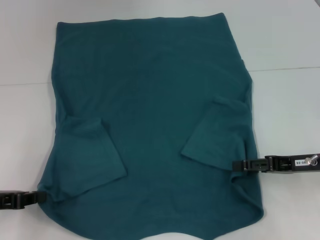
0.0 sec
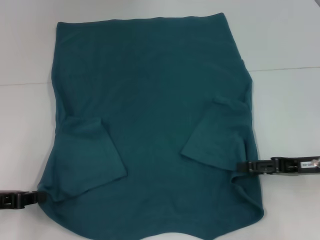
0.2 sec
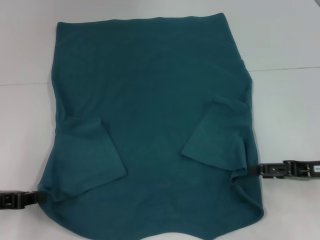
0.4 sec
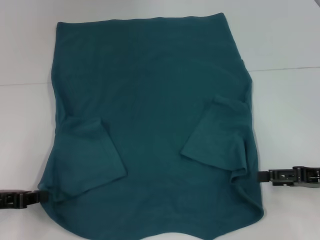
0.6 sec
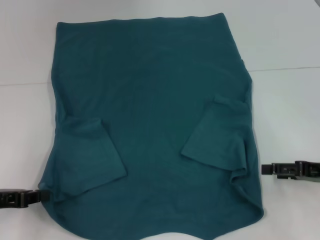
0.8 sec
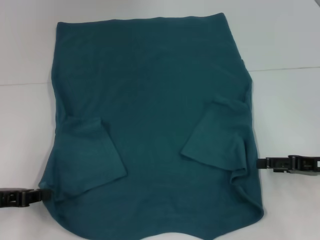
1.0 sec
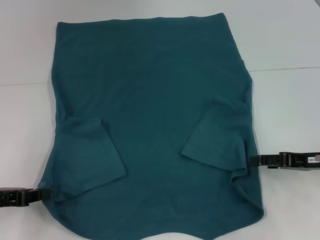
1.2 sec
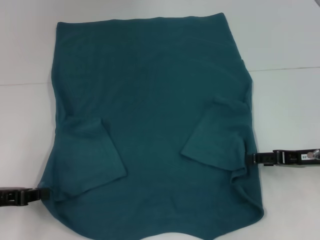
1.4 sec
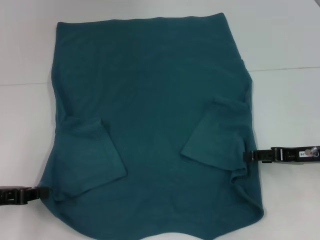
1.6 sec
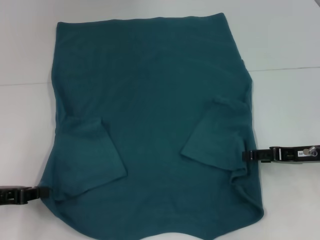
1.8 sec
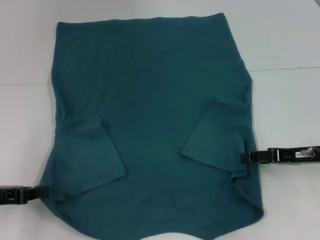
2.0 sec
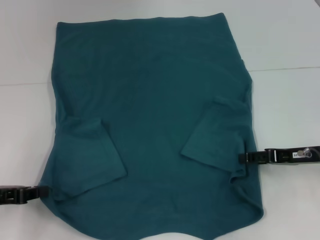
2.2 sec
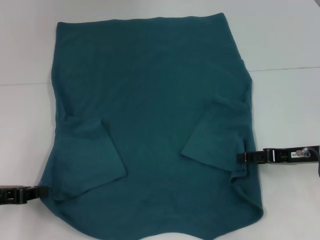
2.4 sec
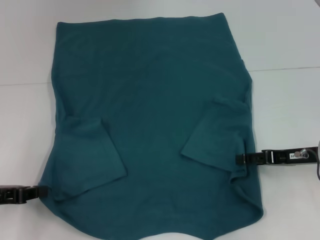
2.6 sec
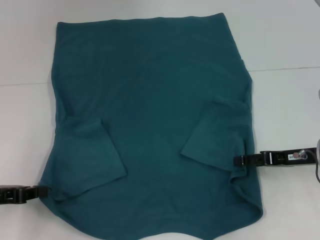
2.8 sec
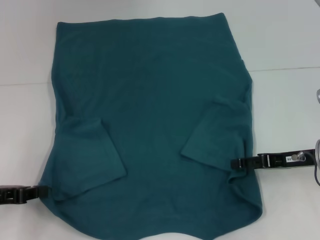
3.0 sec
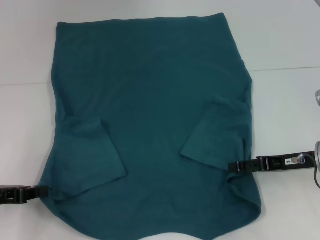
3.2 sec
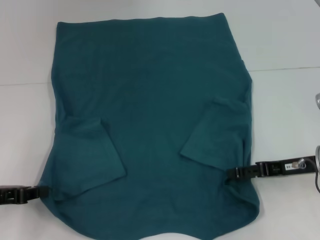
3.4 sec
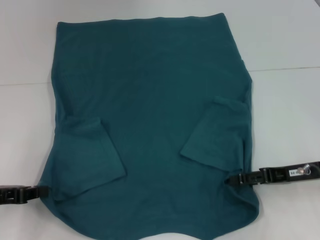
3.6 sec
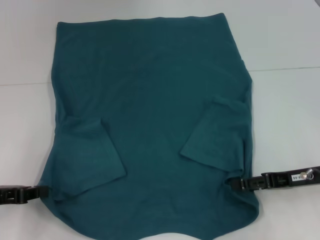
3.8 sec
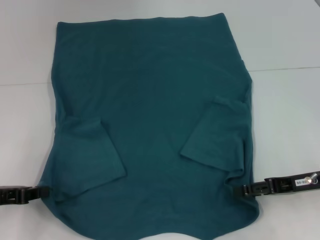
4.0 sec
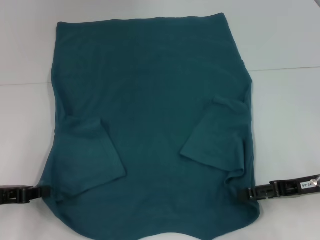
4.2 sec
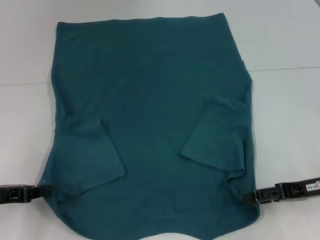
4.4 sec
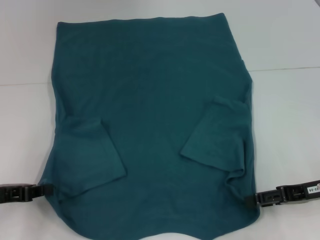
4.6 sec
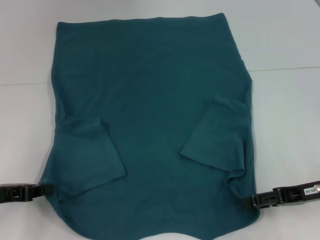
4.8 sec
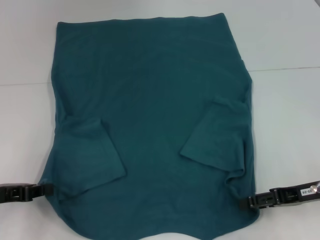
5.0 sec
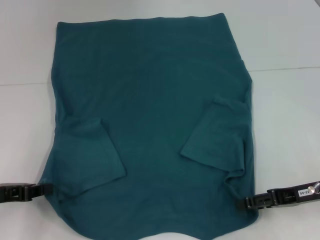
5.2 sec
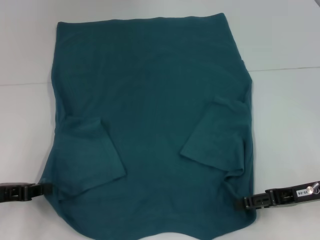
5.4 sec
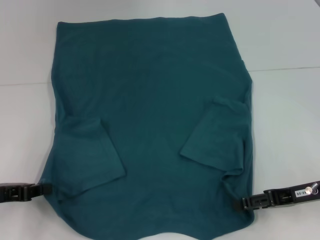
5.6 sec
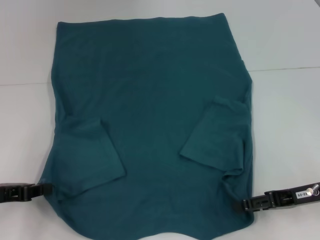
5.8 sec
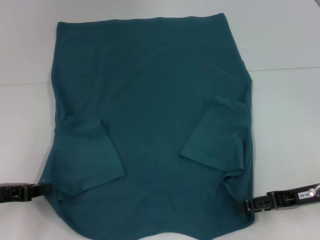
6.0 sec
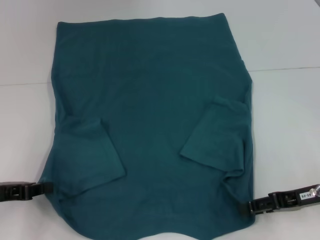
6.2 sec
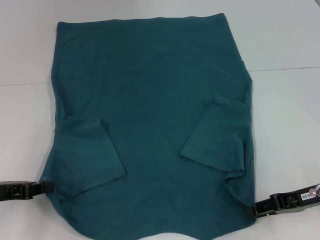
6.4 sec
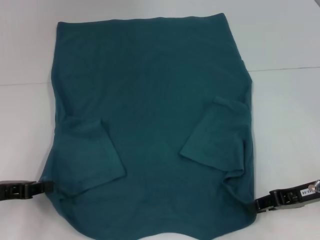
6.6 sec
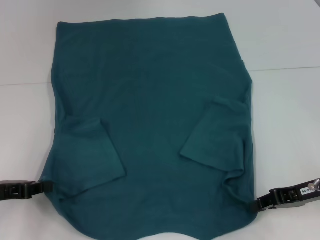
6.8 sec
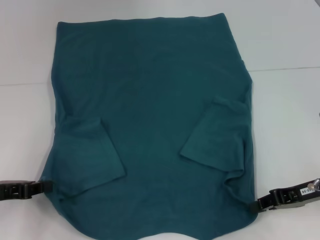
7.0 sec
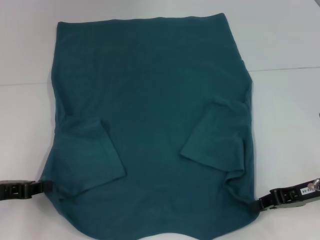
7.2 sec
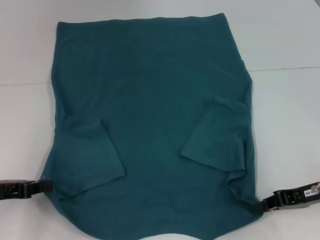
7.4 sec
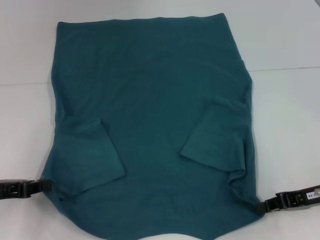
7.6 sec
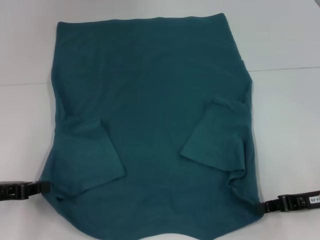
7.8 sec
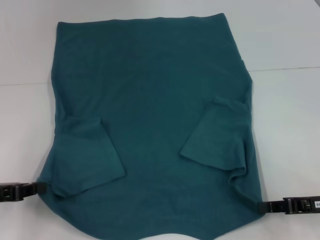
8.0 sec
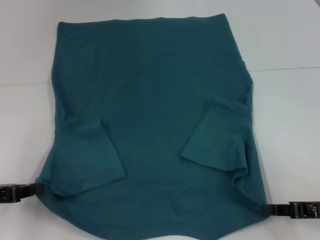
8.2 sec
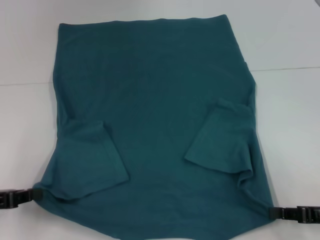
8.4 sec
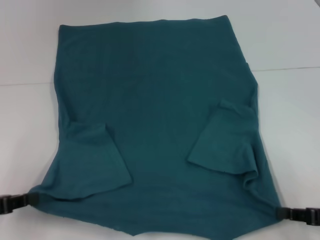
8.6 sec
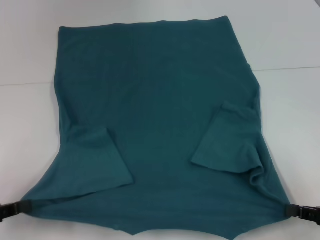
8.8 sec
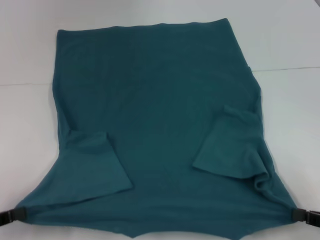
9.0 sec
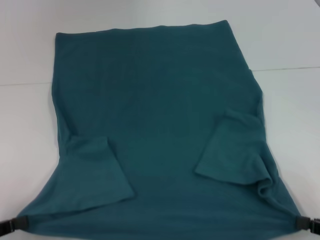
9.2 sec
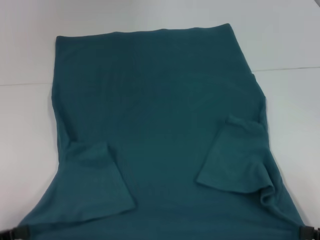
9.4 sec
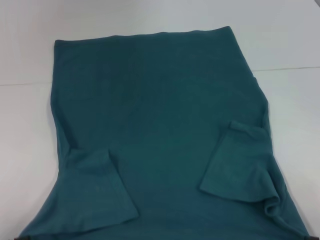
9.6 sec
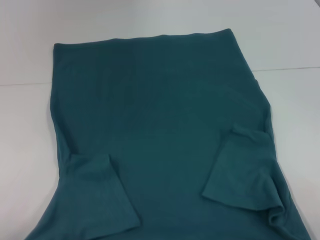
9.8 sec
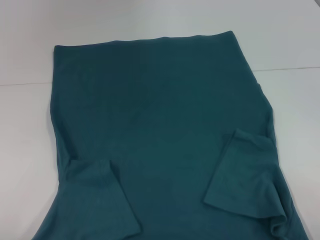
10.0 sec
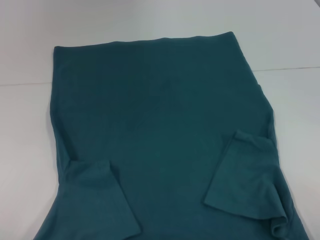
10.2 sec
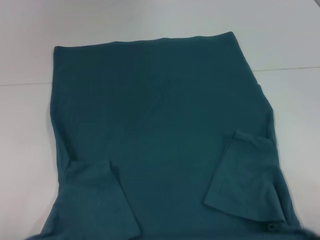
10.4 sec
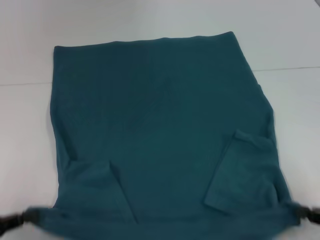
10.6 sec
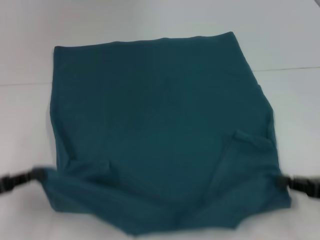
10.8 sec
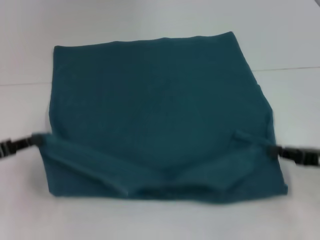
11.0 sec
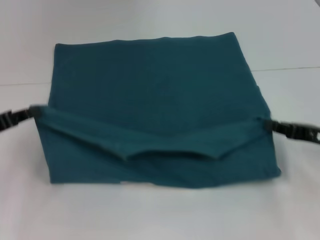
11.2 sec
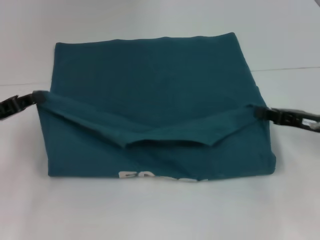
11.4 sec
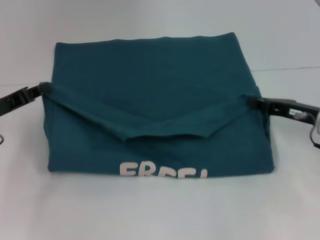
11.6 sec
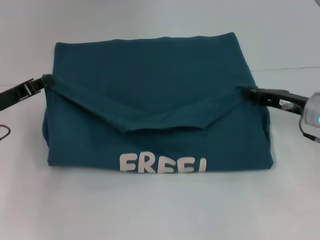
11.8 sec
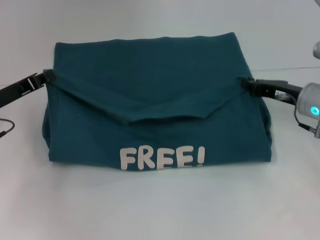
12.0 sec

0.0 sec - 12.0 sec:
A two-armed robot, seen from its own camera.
Step, 0.0 sec - 7.4 sec: Grab the bottom right corner with your right hand.
0.0 sec - 6.0 sec: The grippers stay close to where they were, moving slightly.
6.0 sec - 7.6 sec: The right gripper closes its fingers.
7.6 sec - 9.0 sec: The left gripper travels backward by about 5 cm. Meanwhile the right gripper moves backward and to the right, approximately 10 cm.
9.0 sec - 10.4 sec: The left gripper is displaced backward by roughly 5 cm.
10.4 sec - 12.0 sec: The right gripper travels forward and to the left by about 25 cm. Meanwhile the left gripper is displaced forward by roughly 20 cm.

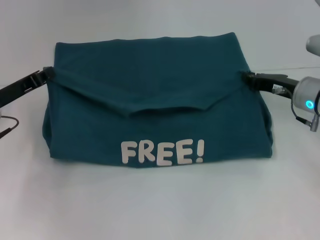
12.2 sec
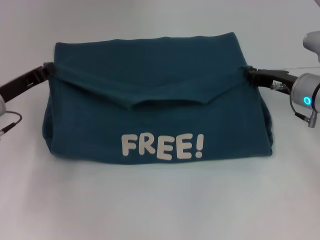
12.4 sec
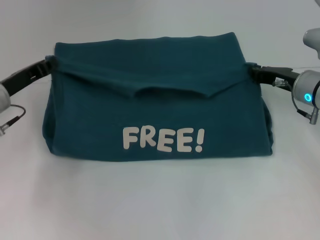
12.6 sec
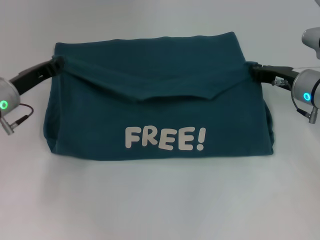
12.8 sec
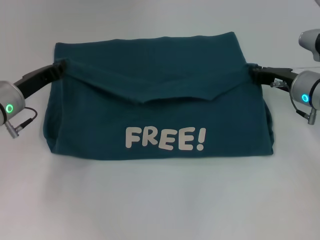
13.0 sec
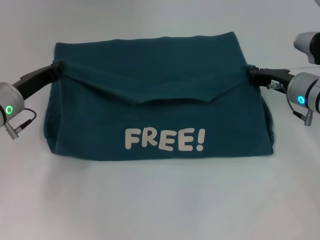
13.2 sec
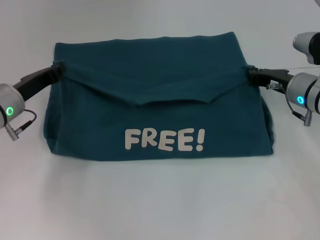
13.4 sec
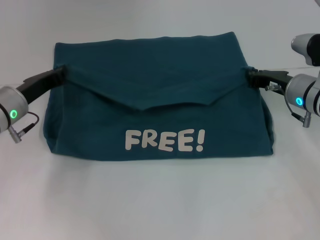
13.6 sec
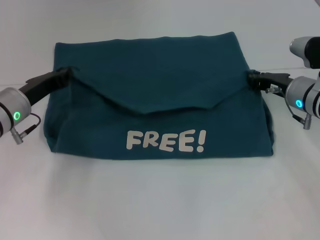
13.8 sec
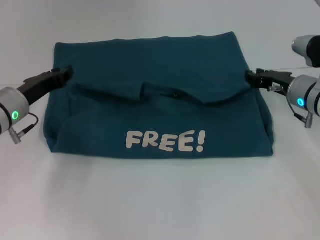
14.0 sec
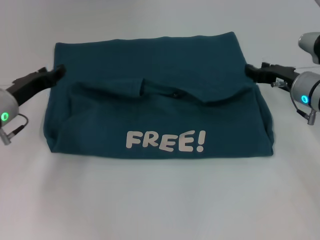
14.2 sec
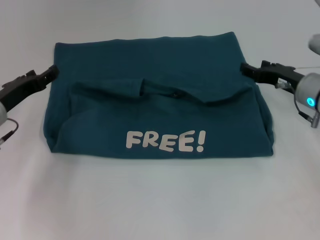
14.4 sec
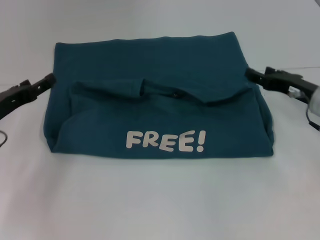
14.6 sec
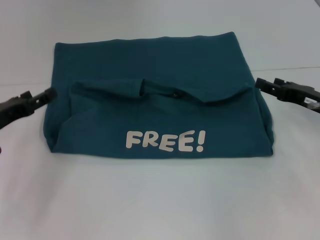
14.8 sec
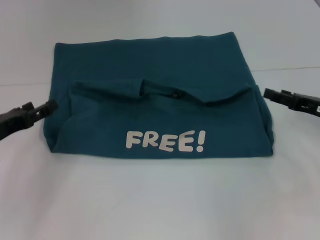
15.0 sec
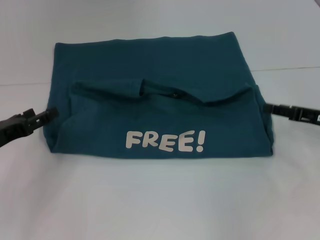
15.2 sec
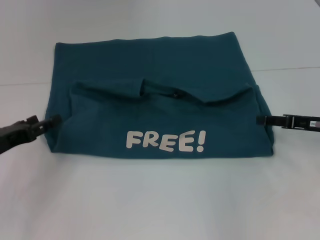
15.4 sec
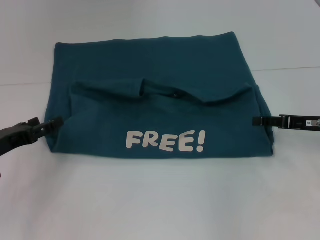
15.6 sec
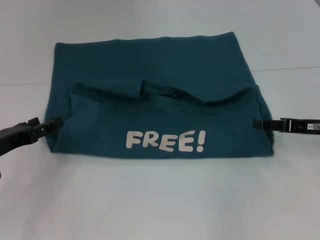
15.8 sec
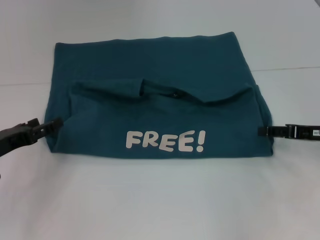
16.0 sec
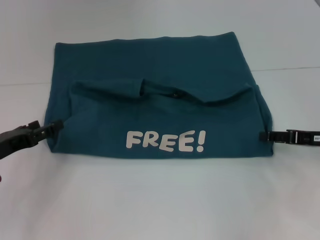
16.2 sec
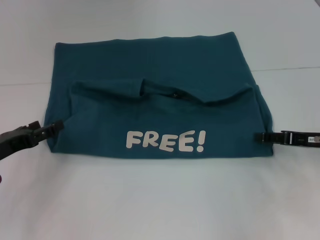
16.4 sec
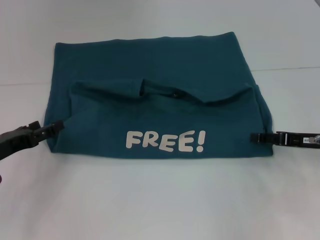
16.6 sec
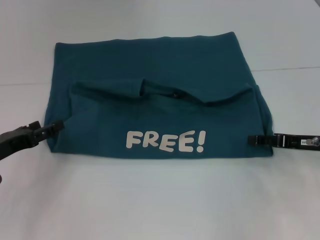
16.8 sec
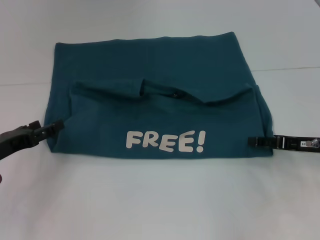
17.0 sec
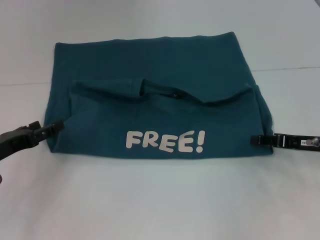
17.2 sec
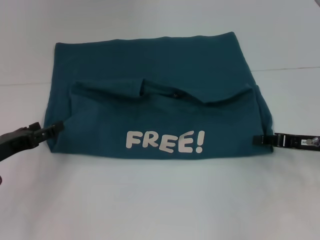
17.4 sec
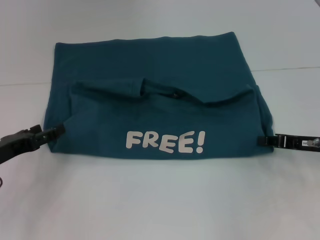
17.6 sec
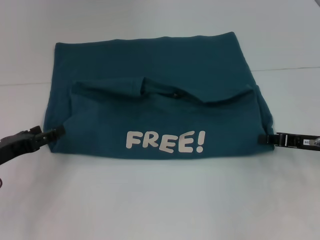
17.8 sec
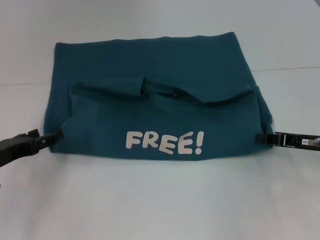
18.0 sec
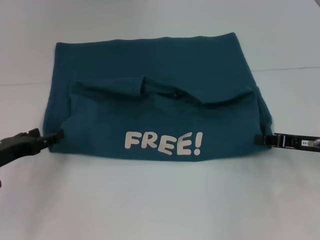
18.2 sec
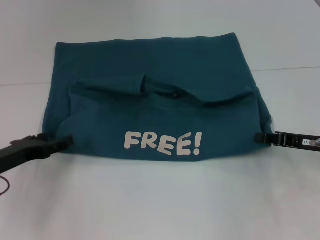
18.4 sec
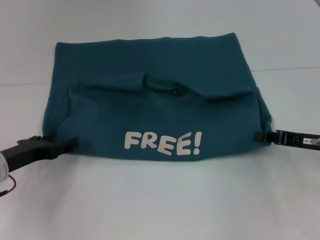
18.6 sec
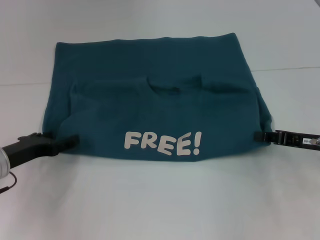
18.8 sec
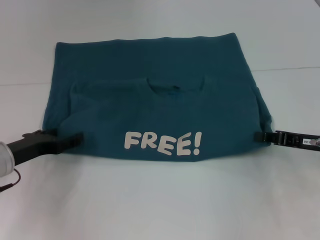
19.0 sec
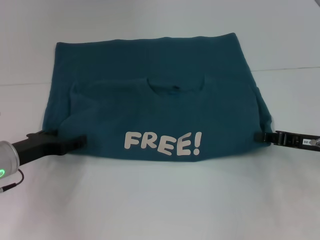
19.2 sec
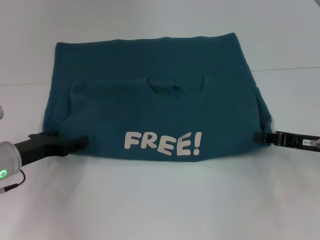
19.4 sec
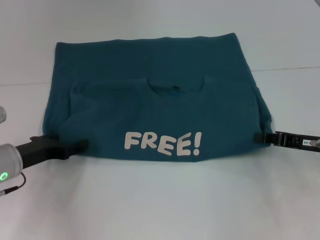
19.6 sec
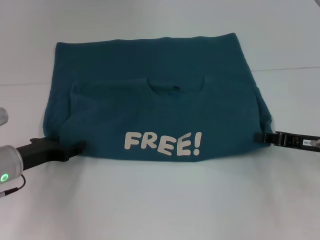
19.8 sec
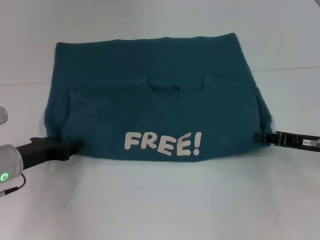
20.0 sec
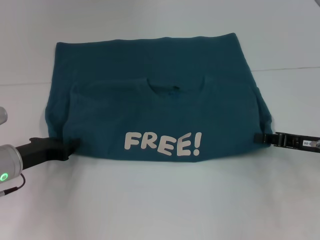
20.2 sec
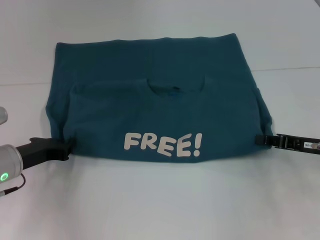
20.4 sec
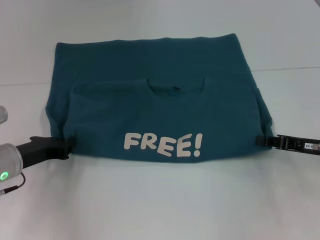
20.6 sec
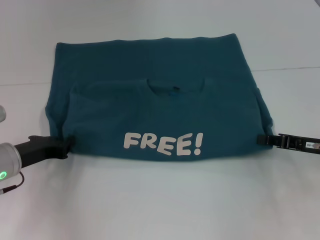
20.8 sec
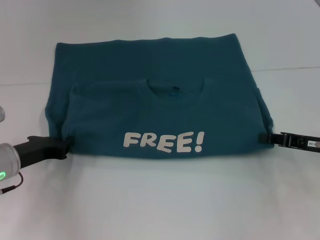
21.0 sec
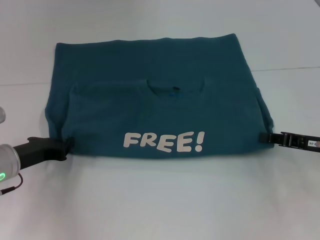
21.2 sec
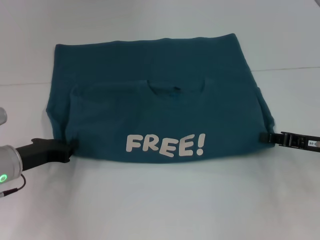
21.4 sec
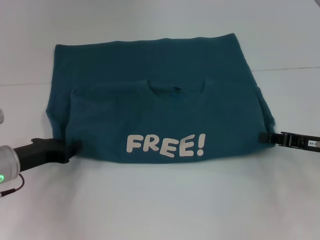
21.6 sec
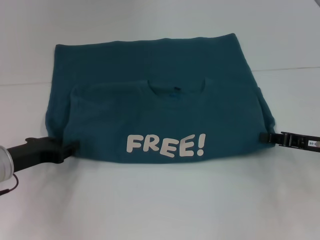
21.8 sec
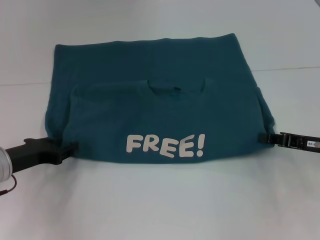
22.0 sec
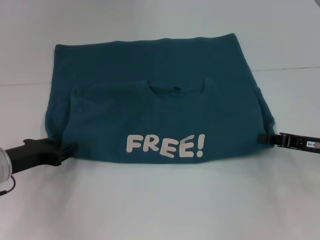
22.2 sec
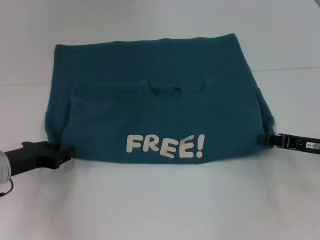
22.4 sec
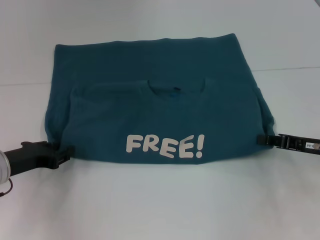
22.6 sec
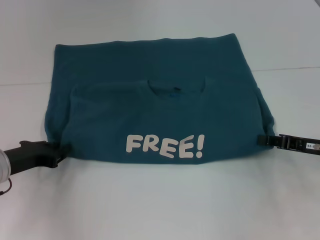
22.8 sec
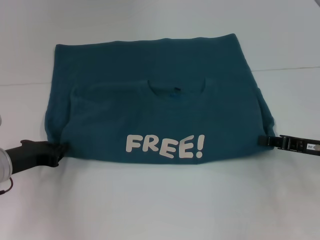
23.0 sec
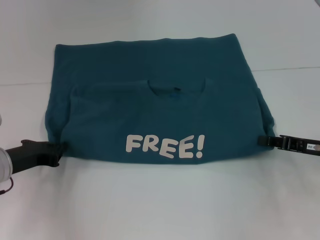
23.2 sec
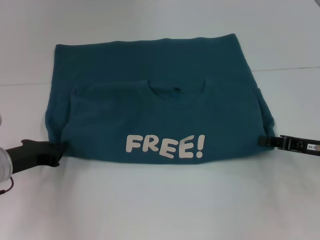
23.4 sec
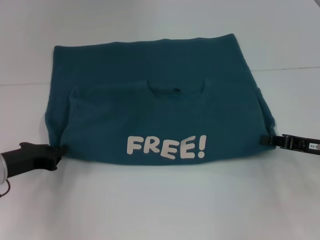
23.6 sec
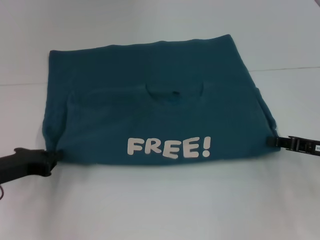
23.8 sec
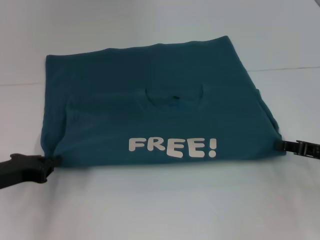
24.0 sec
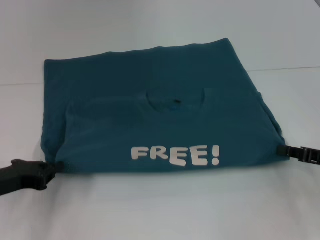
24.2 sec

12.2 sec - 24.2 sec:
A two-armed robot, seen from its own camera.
12.2 sec - 13.8 sec: There are only small adjustments of the grippers.
13.8 sec - 15.2 sec: The left gripper is displaced backward and to the left by about 10 cm, and opens up; the right gripper shifts roughly 10 cm to the right and backward, and opens.
15.2 sec - 16.6 sec: There are only small adjustments of the grippers.
16.6 sec - 18.2 sec: The right gripper closes its fingers.
18.2 sec - 19.8 sec: The left gripper moves approximately 5 cm.
19.8 sec - 21.2 sec: The left gripper closes up.
21.2 sec - 22.6 sec: The grippers stay close to where they were, moving slightly.
22.6 sec - 24.2 sec: The left gripper closes.
